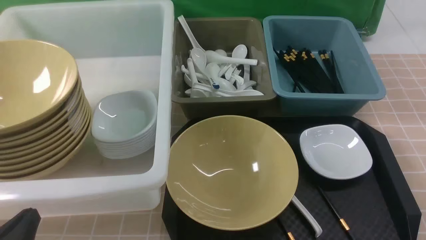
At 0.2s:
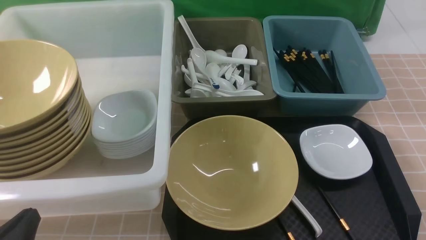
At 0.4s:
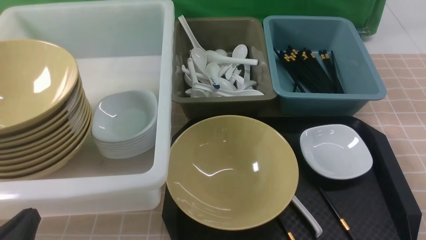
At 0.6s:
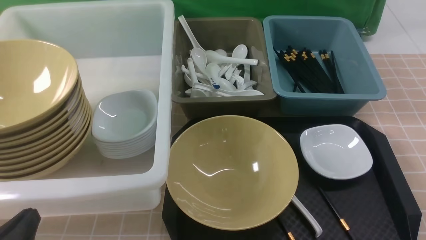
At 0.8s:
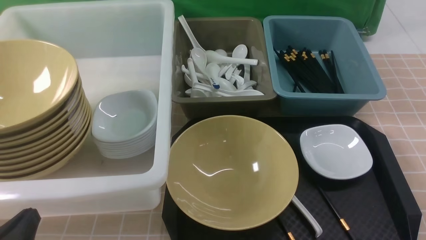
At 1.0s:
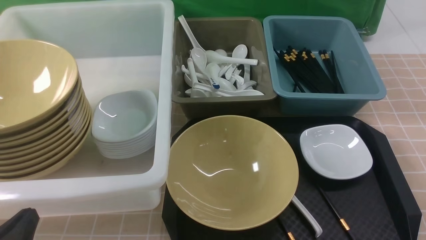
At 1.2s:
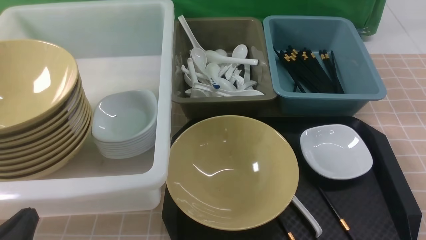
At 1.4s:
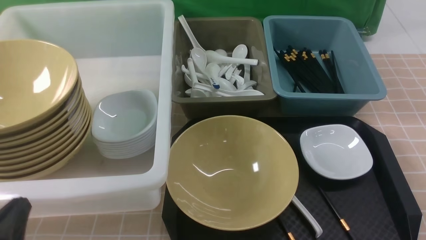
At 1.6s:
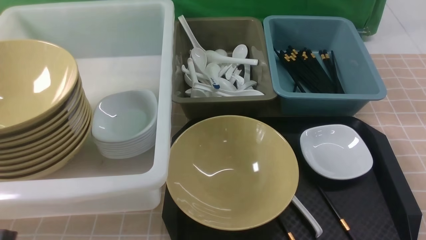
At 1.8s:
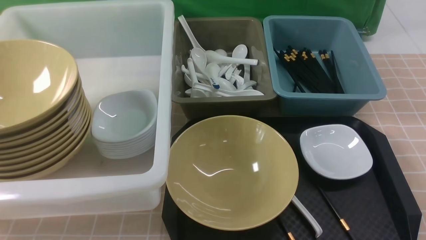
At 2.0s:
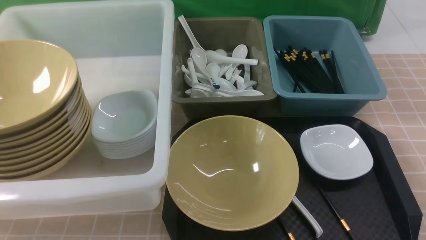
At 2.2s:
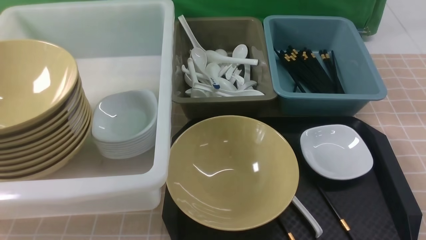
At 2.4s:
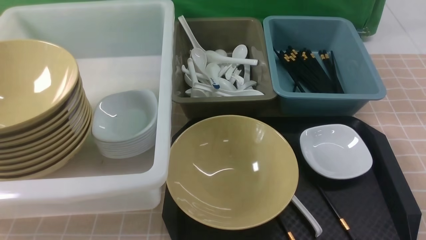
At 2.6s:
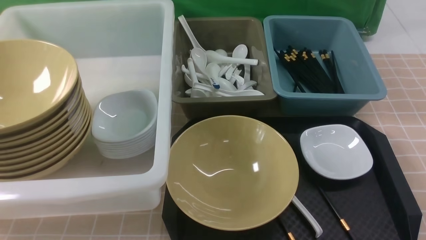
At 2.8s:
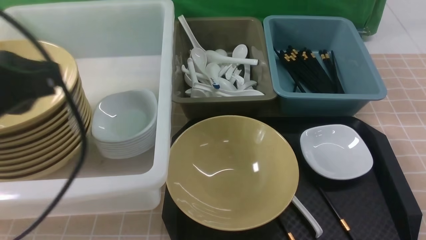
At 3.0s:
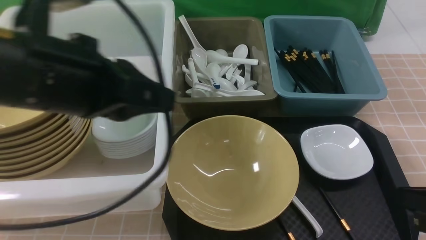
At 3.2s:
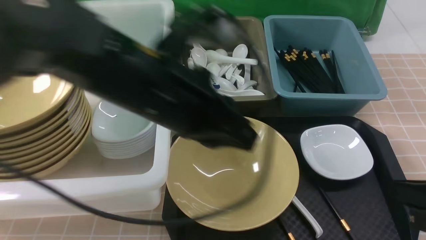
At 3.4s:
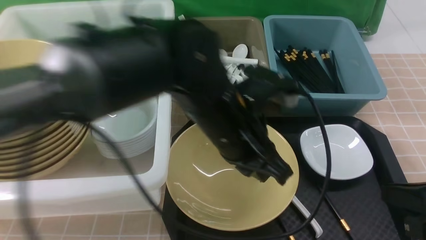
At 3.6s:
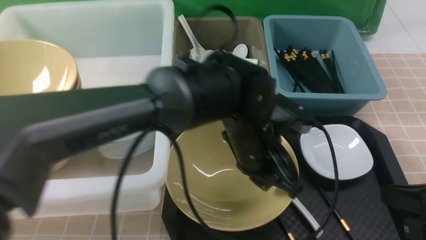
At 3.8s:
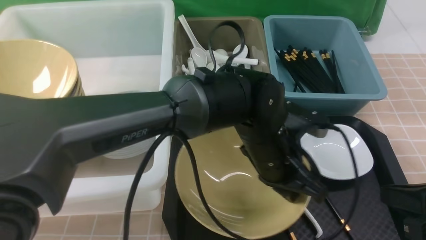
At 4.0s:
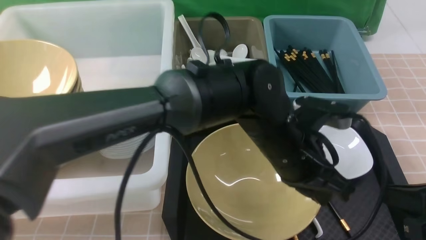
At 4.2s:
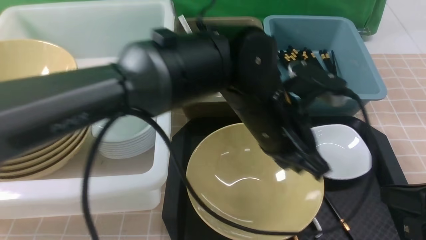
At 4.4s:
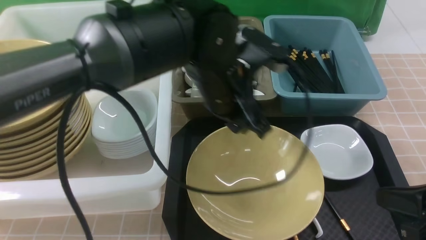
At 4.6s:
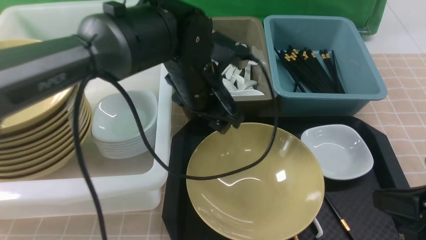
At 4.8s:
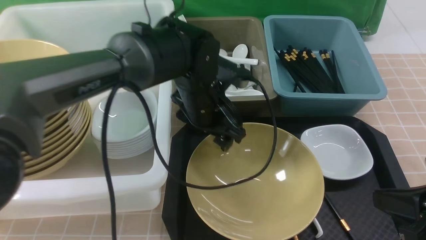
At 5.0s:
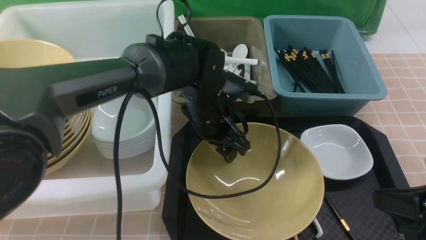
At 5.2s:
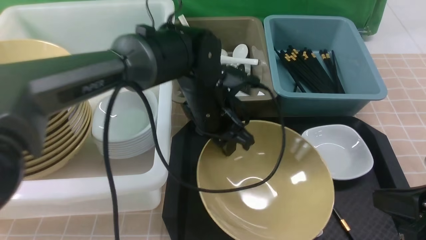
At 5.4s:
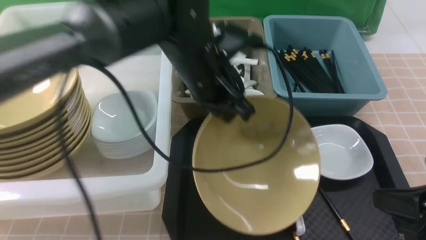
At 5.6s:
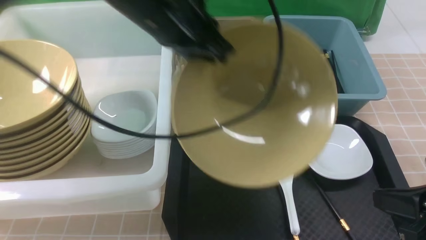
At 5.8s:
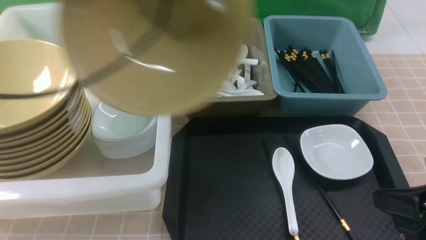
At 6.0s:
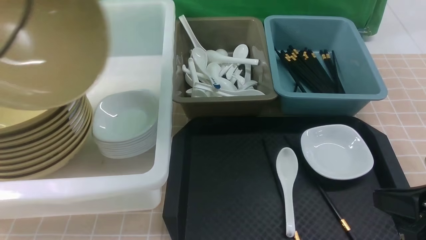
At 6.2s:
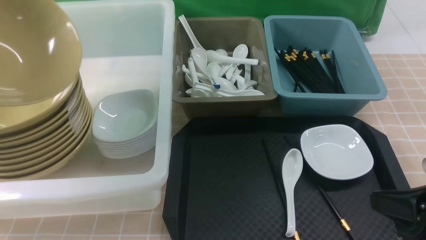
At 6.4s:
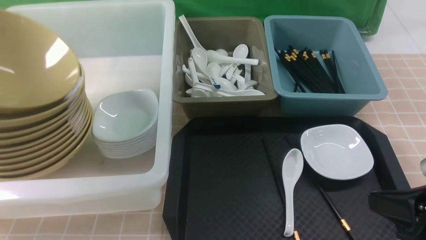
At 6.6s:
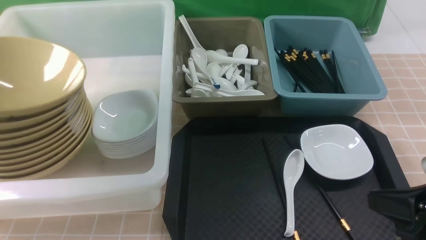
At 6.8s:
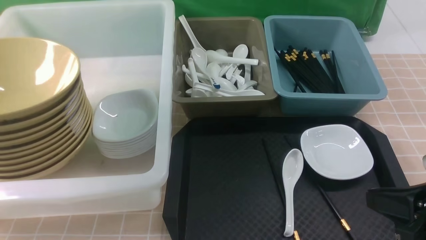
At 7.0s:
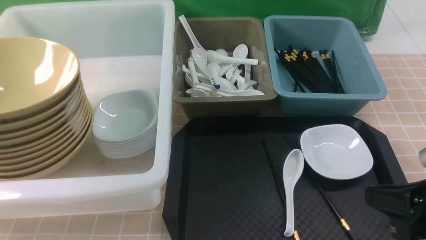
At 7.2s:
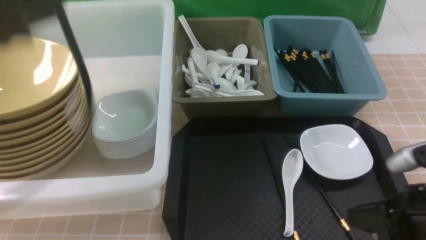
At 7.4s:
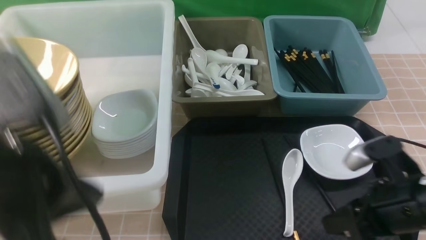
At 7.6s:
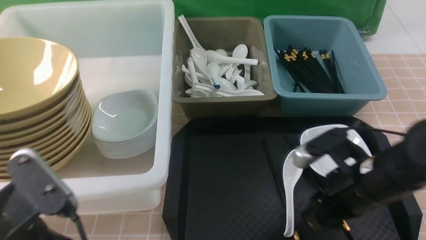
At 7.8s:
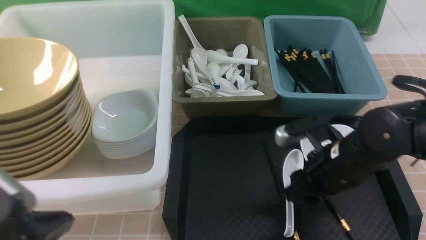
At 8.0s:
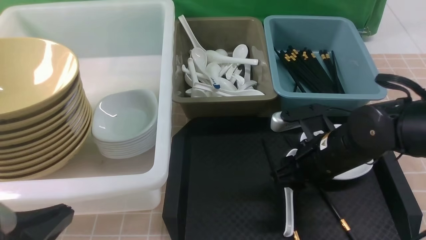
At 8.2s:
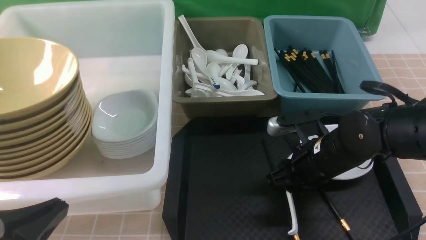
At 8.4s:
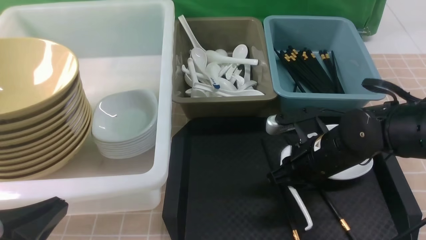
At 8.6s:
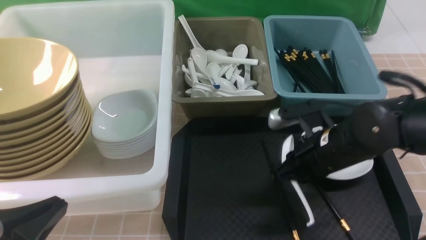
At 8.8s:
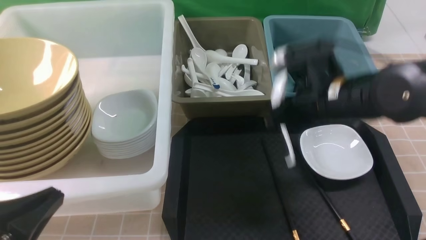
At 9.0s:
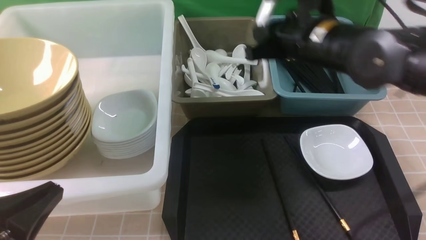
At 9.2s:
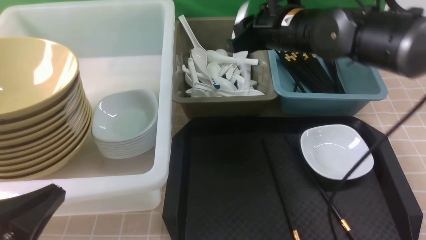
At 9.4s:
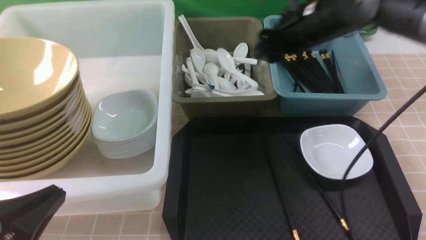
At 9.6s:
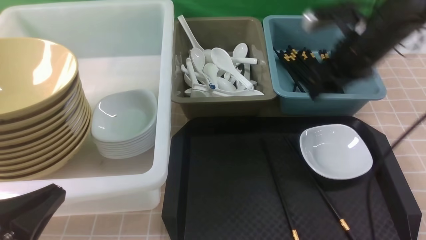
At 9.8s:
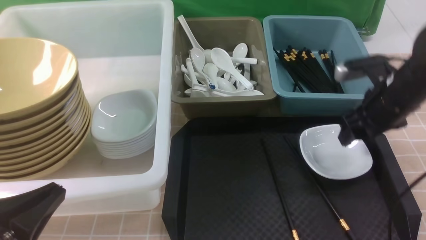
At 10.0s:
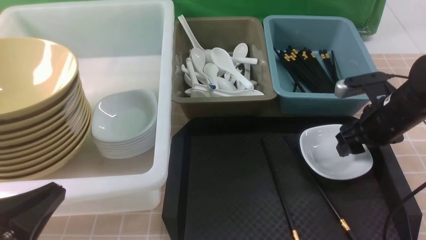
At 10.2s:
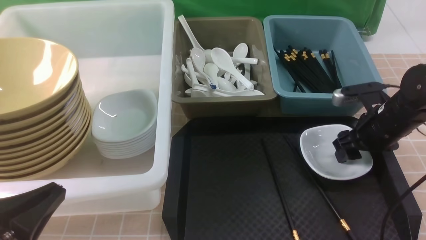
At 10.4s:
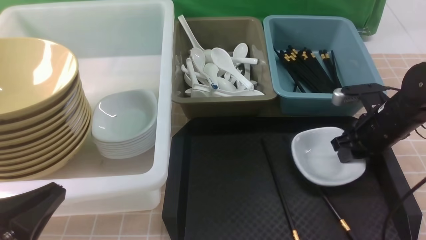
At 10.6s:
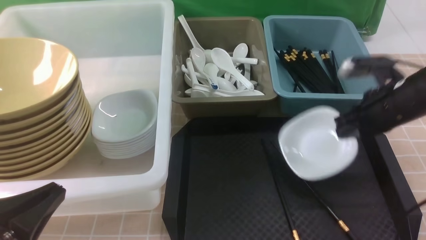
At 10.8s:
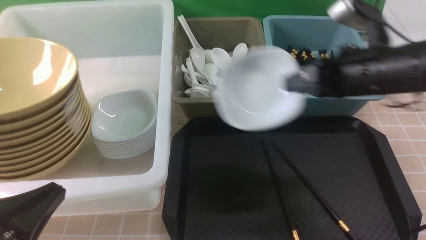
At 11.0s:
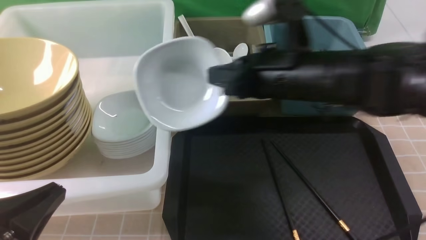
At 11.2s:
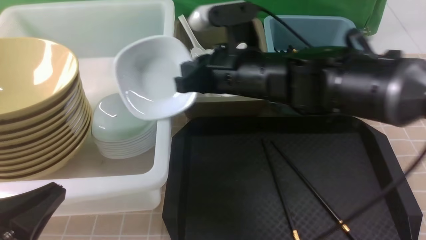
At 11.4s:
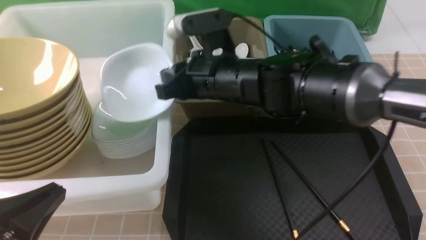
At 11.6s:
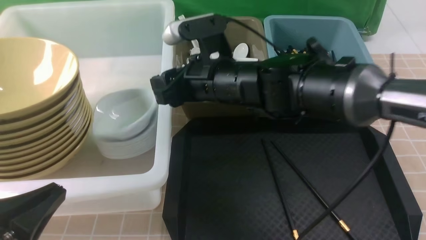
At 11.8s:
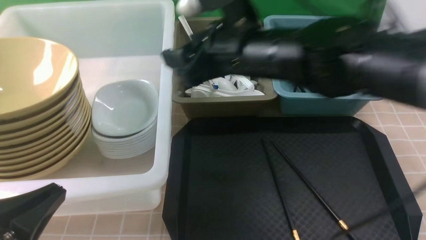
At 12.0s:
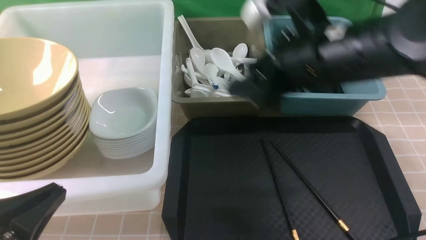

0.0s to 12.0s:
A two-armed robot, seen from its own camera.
Task of the whole recording: on brown table put chopsticks spoon bowls plates into blue grey white boxes.
Step, 0.0s to 5.2s: use the left arm to grab the yellow noodle bowl on the left.
Step, 5.4s to 6.6s: use the left arm to put the noodle bowl into the large storage box on the left.
Step, 6.8s to 8.6s: use the right arm to grab the soup spoon in the middle.
Step, 8.8s to 9.2s: use the right arm to put the soup spoon into the small storage box in the middle.
Step, 9.4s to 10.4s: use the right arm to grab the plate.
Step, 10.6s to 11.8s: use the right arm to put the plate into the large storage box on the left.
1.6s to 3.0s: The right gripper heads forward, covering some 5 cm, reaches some 15 cm upward, then returns, and closes its fingers; the left gripper moves upward, forward and to the right, roughly 25 cm.
3.0s to 4.4s: The left gripper goes some 20 cm to the right, forward and downward, and opens its fingers.
4.4s to 6.0s: The left gripper shifts some 35 cm to the left and upward, and closes its fingers.
6.0s to 7.6s: The left gripper goes approximately 25 cm backward, downward and to the right, and opens, then closes once more. The right gripper is displaced forward and to the left by approximately 10 cm, and opens its fingers.
7.6s to 9.0s: The right gripper goes approximately 20 cm forward, upward and to the left, and closes up.
9.0s to 10.4s: The right gripper shifts approximately 20 cm to the right and downward, and opens, then closes once more.
10.4s to 12.0s: The right gripper is displaced to the left and upward by roughly 15 cm, and opens up.

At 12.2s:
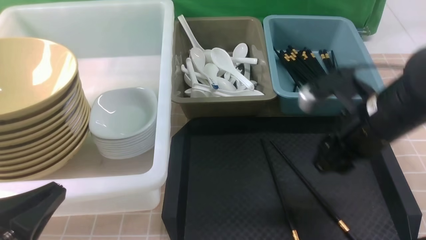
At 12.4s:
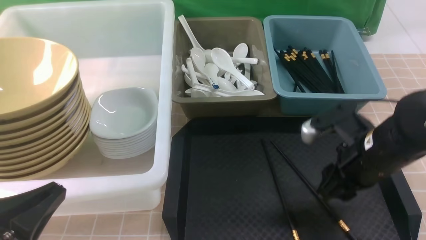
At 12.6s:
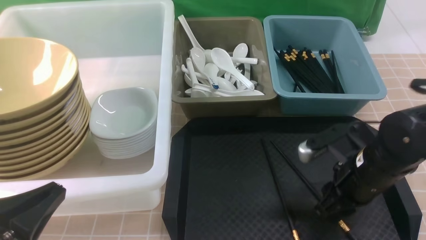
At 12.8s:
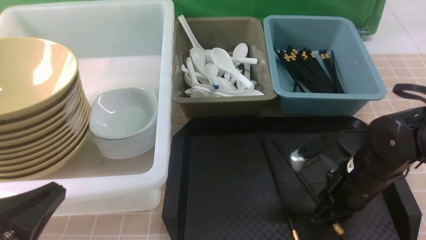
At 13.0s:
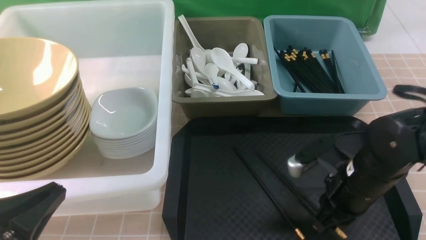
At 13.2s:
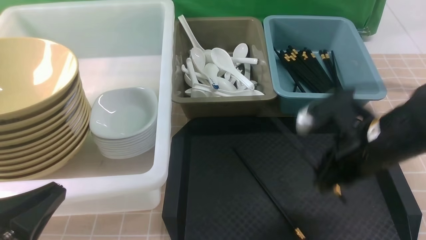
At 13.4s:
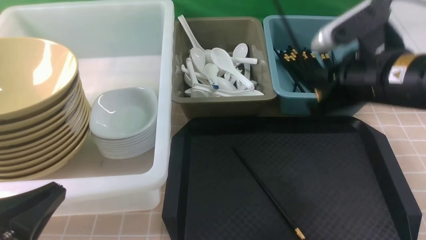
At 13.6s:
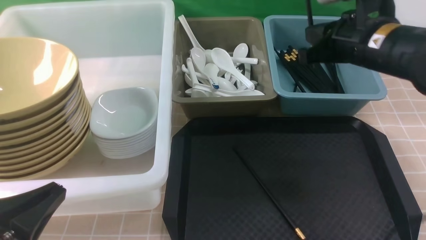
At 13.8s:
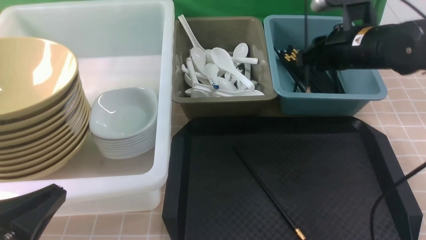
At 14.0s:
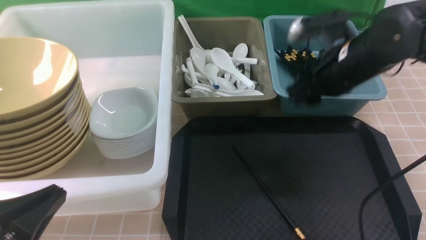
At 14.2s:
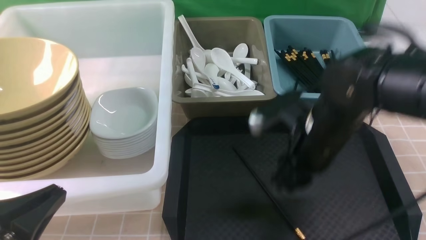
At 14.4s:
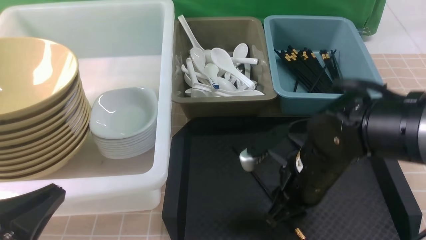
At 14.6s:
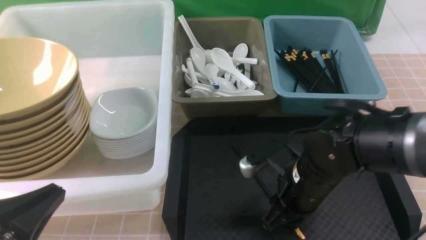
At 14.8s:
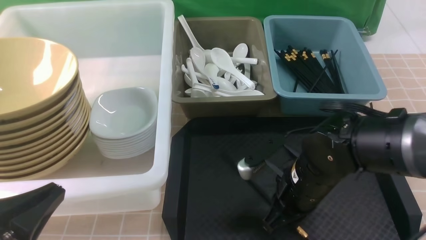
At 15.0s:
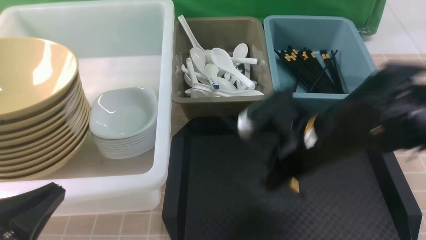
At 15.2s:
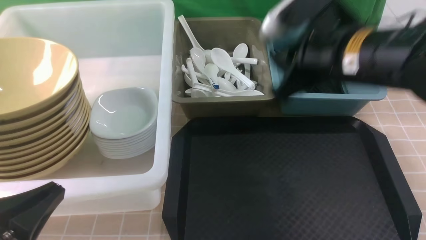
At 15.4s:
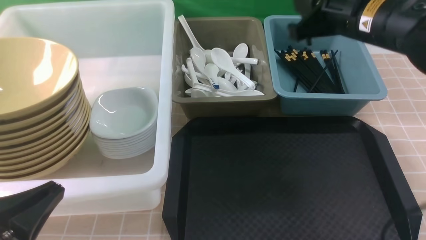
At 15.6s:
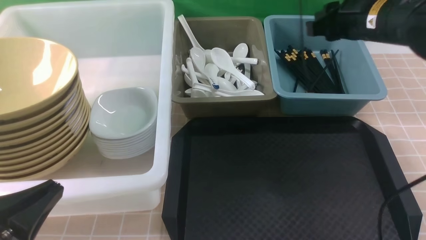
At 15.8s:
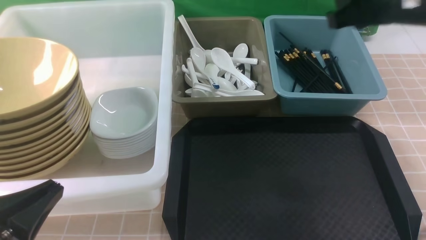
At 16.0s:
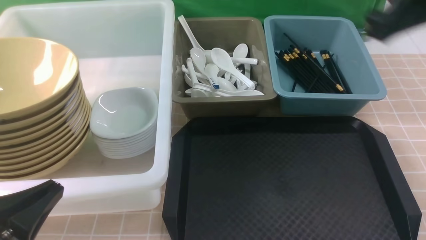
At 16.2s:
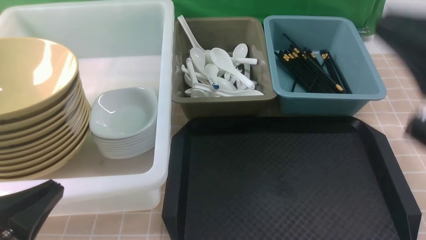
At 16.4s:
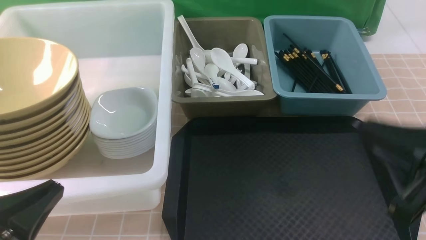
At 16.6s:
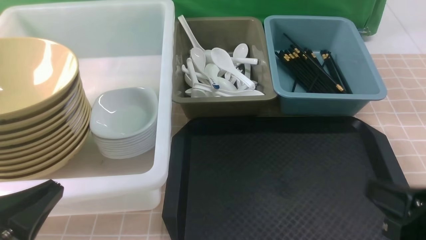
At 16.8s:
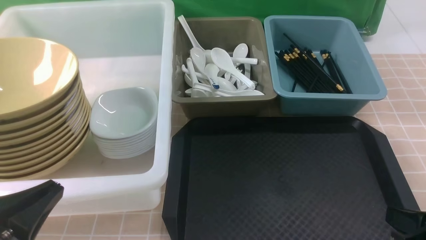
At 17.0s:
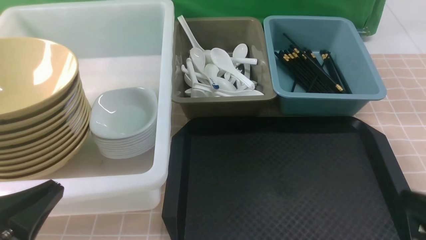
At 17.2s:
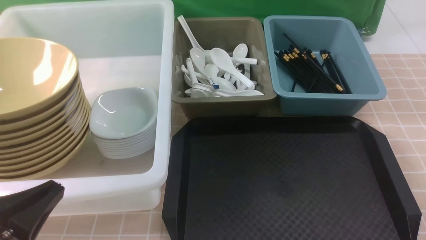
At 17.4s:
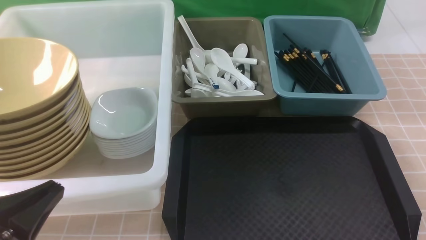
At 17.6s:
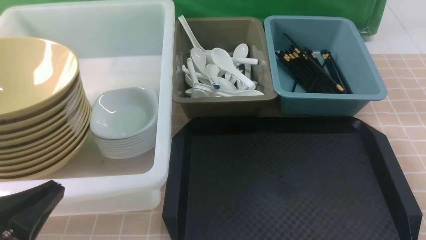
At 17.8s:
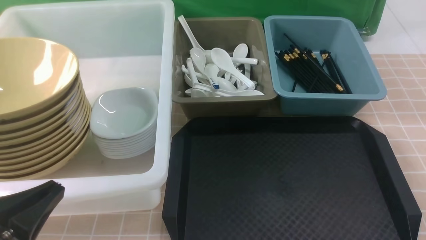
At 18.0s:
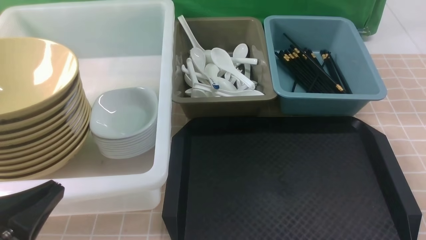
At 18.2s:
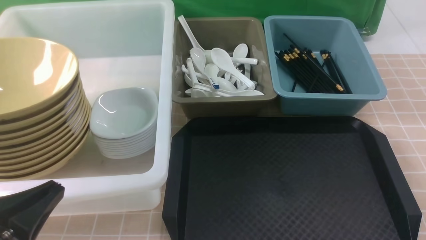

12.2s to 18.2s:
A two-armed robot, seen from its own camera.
Task of the whole recording: on brown table put chopsticks spoon bowls plates into blue grey white boxes.
Step, 12.2s to 13.0s: use the right arm to grab a chopstick.
Step, 13.2s to 13.8s: use the right arm to put a chopstick into the small storage box on the right.
Step, 14.2s to 14.8s: use the right arm to grab a chopstick.
Step, 15.0s to 15.8s: use the right arm to put a chopstick into the small storage box on the right.
12.2s to 13.8s: The right gripper travels forward by approximately 10 cm, travels downward and back again, some 10 cm each way, and closes and opens again.
13.8s to 15.2s: The right gripper travels backward by roughly 5 cm, and goes downward and returns, approximately 10 cm each way.
15.2s to 16.6s: The right gripper moves backward, to the right and downward, roughly 25 cm.
16.6s to 18.2s: The right gripper goes approximately 10 cm to the right, backward and downward.
